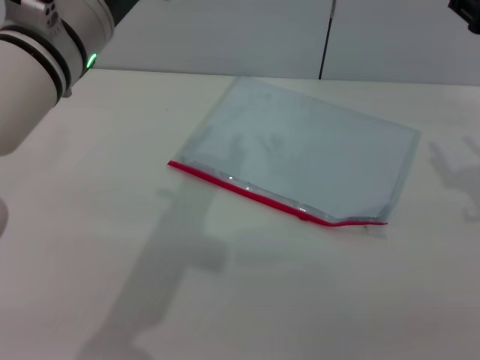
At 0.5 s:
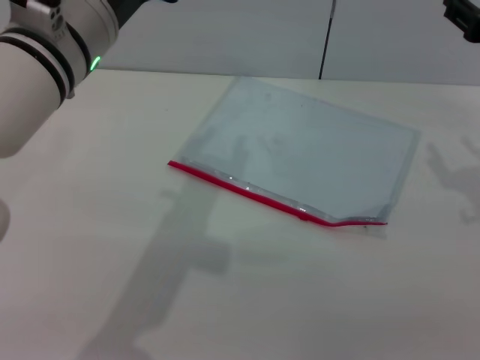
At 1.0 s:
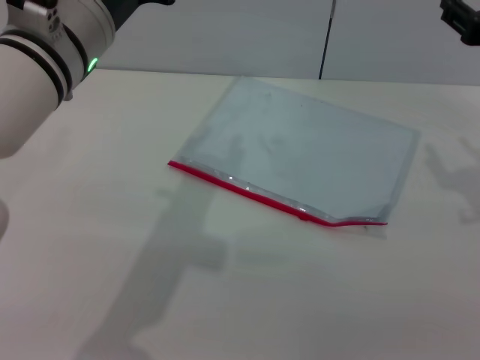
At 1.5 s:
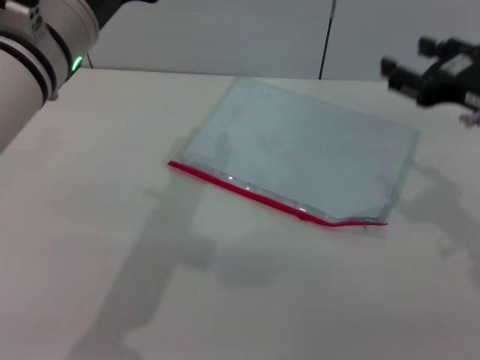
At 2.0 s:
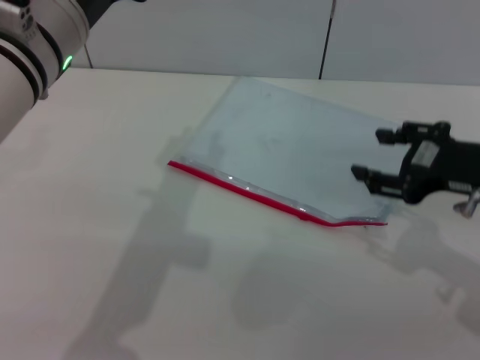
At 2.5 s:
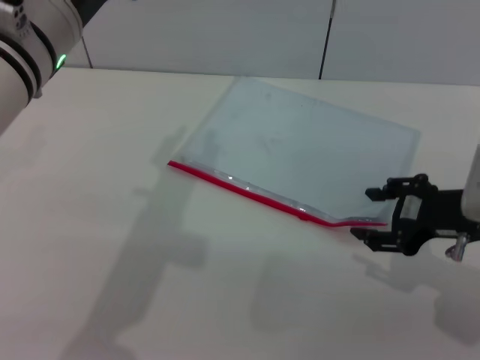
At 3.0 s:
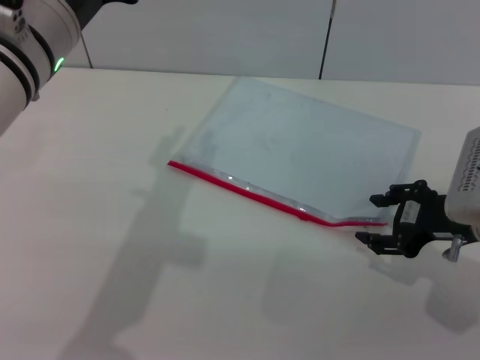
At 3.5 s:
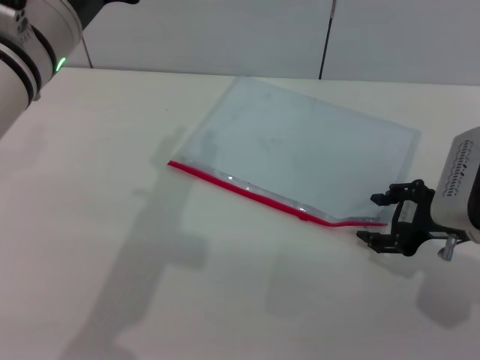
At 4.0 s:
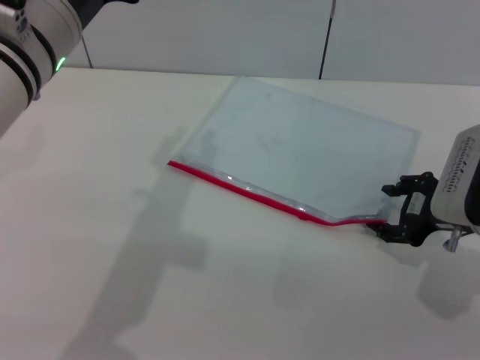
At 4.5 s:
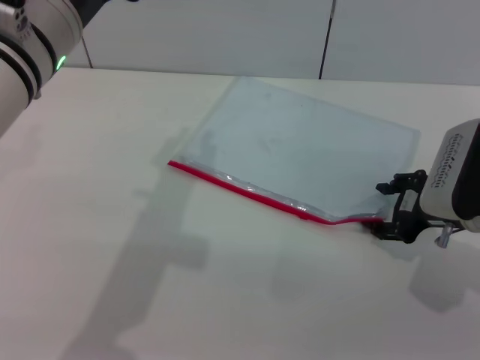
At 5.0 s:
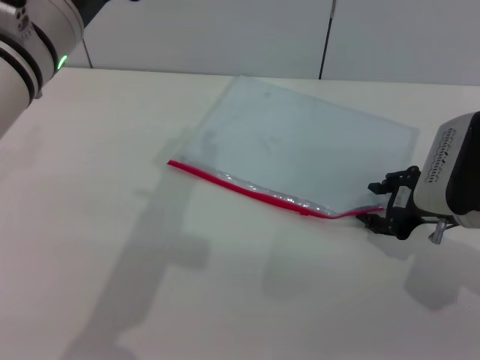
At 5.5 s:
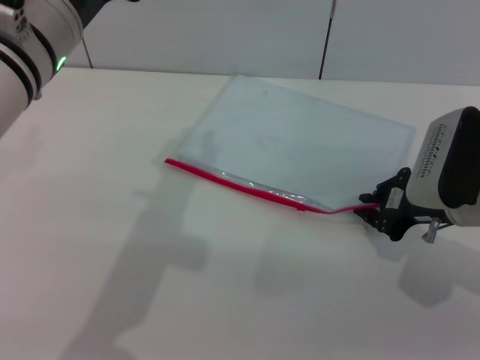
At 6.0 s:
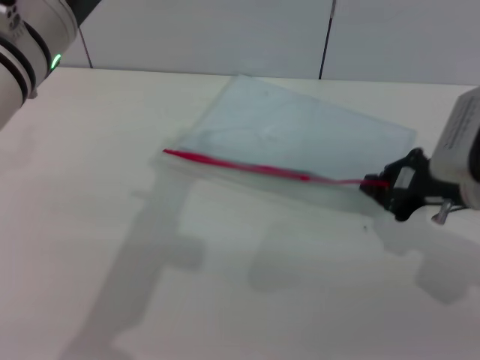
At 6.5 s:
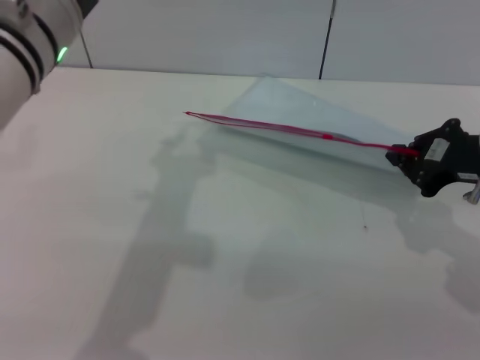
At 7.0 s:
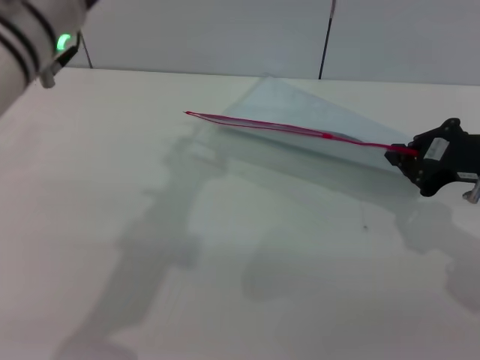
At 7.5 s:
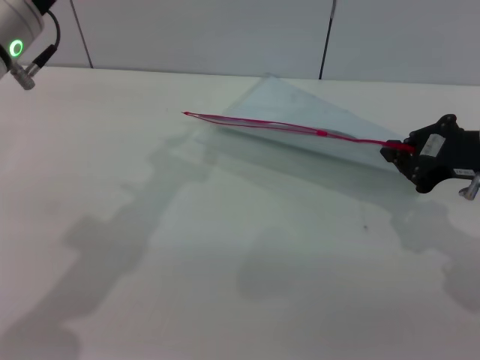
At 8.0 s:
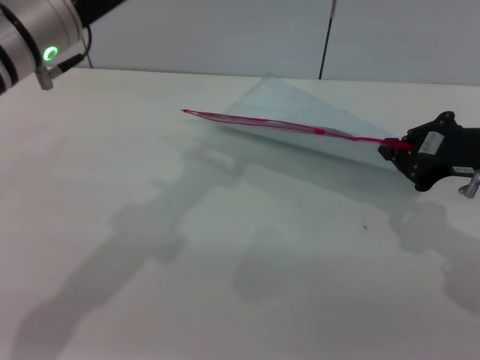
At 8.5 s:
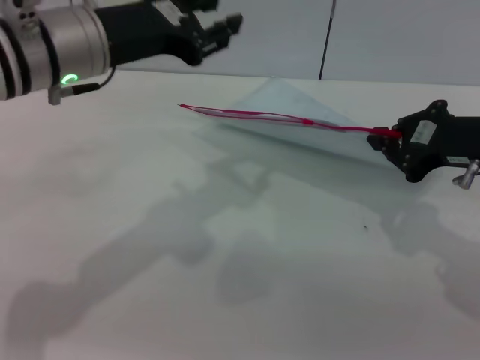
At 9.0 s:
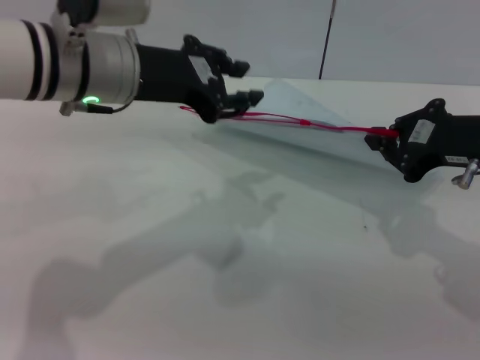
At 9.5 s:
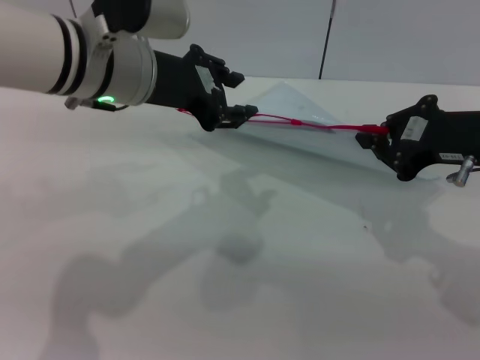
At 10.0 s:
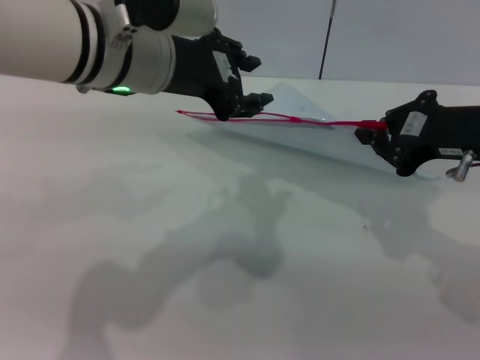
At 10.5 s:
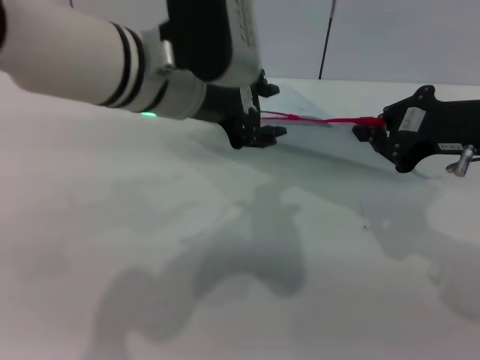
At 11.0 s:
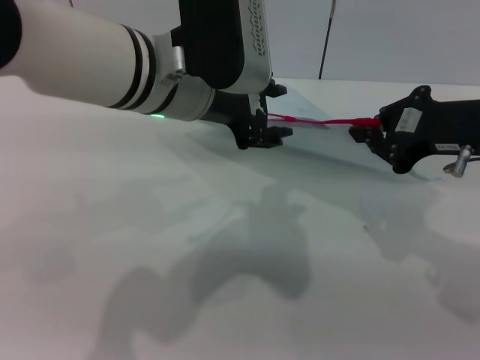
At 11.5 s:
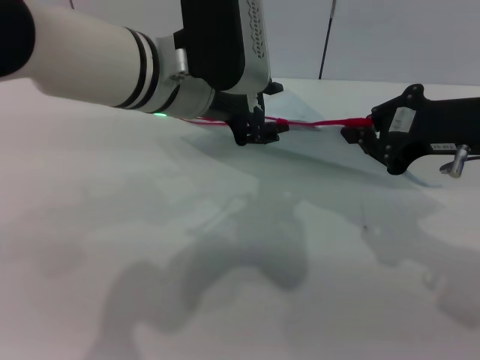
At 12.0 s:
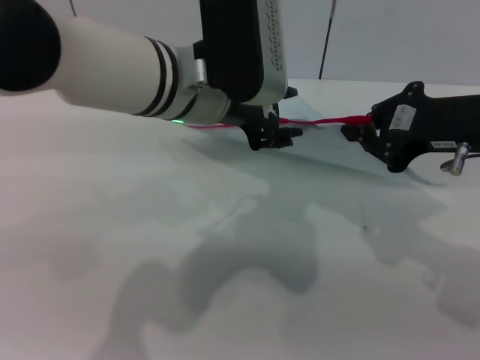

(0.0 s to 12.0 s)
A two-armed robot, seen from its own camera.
Step, 0.0 s - 9.0 s: Pick up the transparent plastic bag with the right gripper.
0.0 s - 2.0 s: The right gripper ends up some 5 cm from where it was.
2.0 s - 4.0 s: The right gripper moves downward, approximately 5 cm.
4.0 s - 6.0 s: The right gripper closes its fingers.
8.0 s - 10.0 s: The left gripper goes roughly 5 cm to the right.
10.0 s - 12.0 s: The left gripper moves roughly 5 cm.

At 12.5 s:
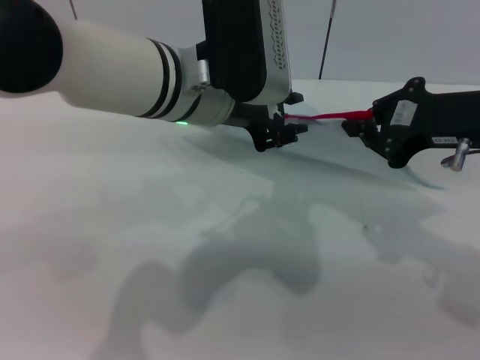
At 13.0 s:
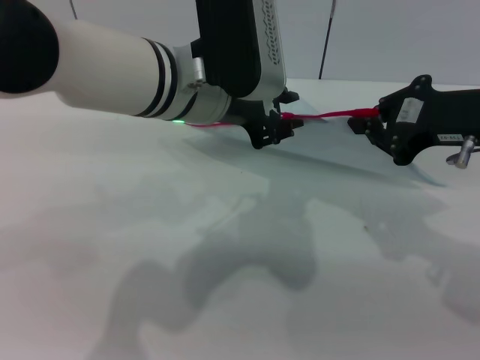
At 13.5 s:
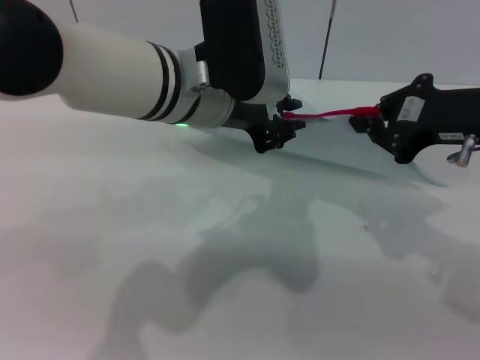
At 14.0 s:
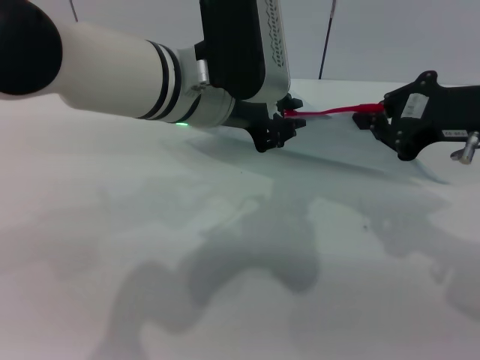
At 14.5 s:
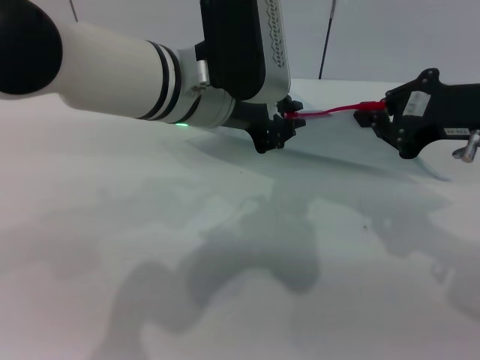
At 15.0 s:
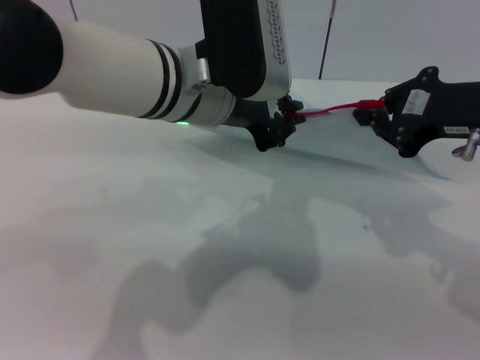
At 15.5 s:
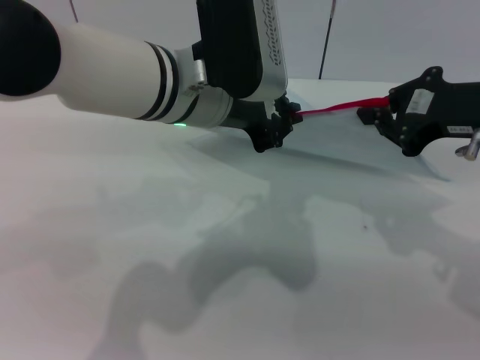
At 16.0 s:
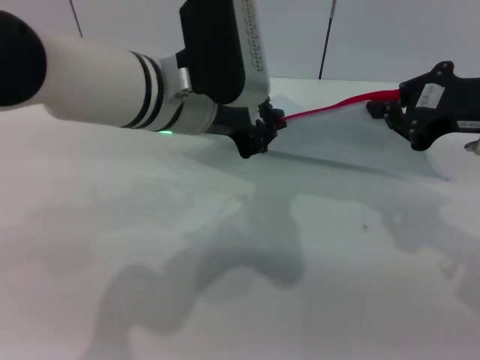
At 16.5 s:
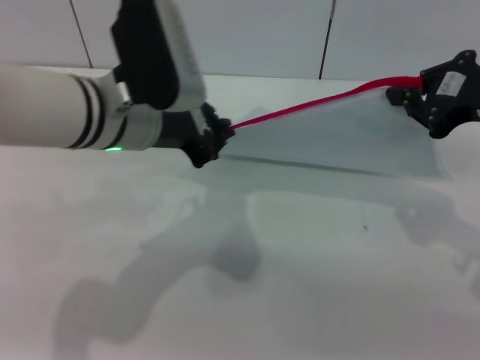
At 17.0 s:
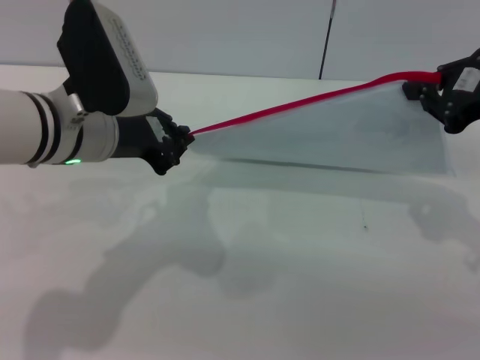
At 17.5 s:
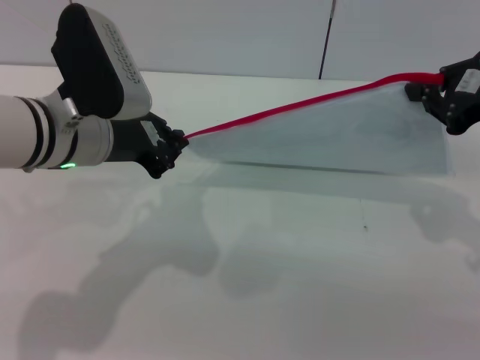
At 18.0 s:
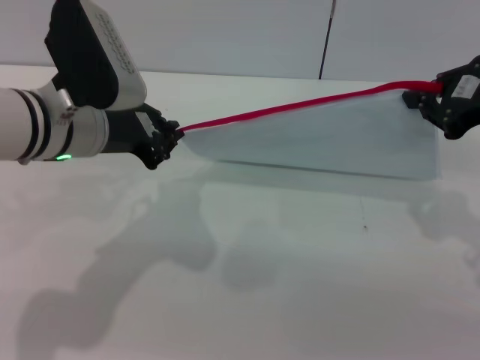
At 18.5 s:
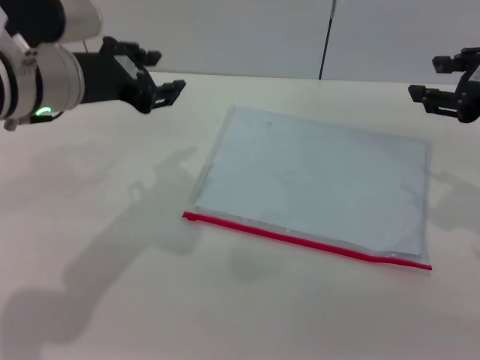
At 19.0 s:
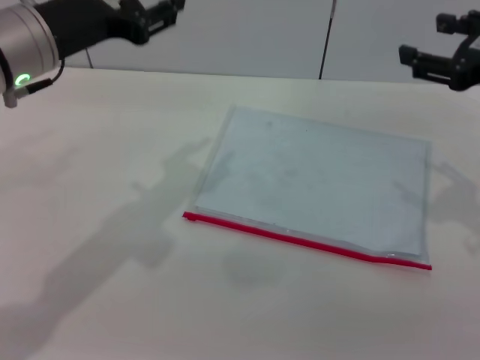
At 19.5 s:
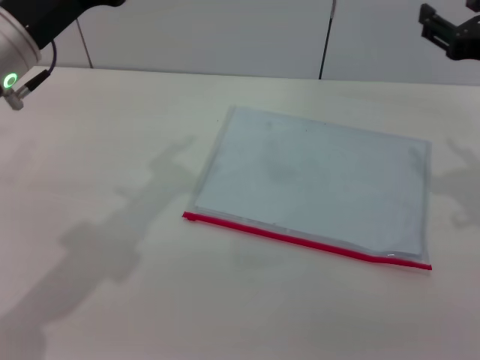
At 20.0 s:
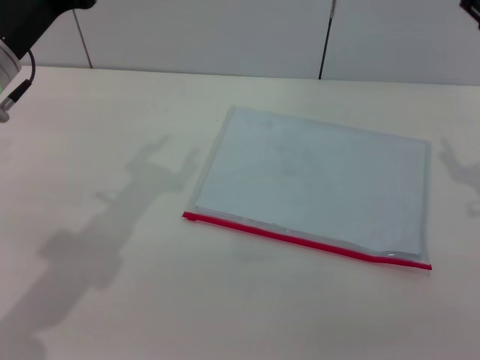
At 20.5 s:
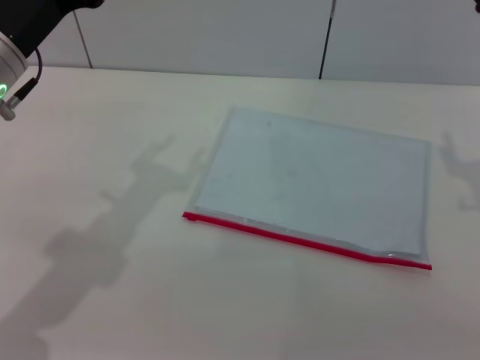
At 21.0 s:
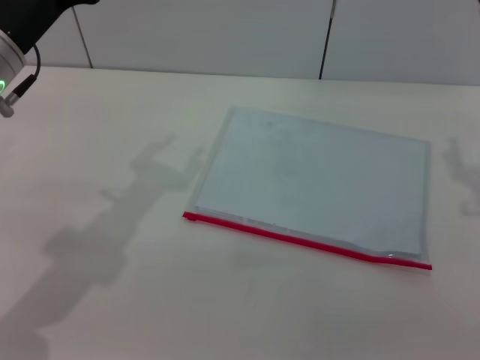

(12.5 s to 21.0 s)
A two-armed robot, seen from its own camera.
Step, 12.5 s - 18.0 s: Pulling up the zipper on the transparent plastic bag with the left gripper to close it.
Step, 18.5 s - 19.5 s: Place the transparent plastic bag.
12.5 s - 14.5 s: The left gripper closes its fingers.
14.5 s - 16.5 s: The left gripper heads to the left, covering roughly 5 cm.
16.5 s - 19.0 s: The right gripper opens its fingers. Meanwhile the left gripper shifts about 10 cm to the left, and opens its fingers.
19.0 s - 21.0 s: The right gripper changes place by approximately 5 cm.

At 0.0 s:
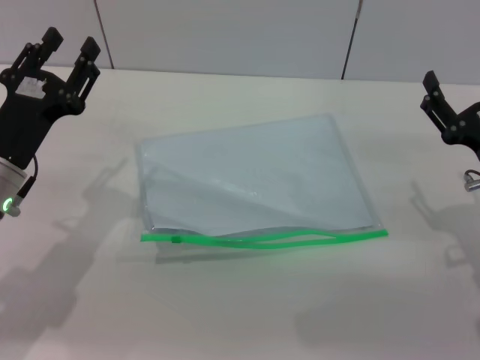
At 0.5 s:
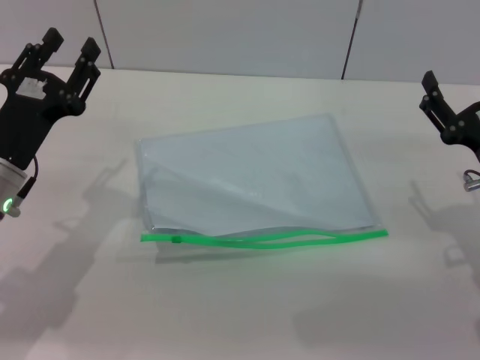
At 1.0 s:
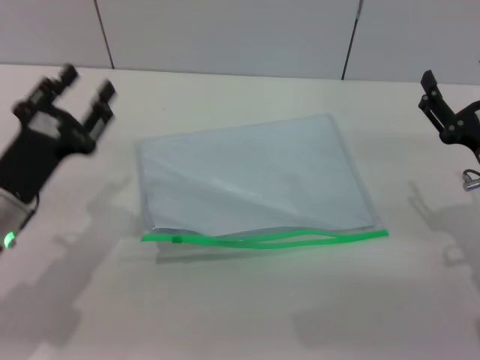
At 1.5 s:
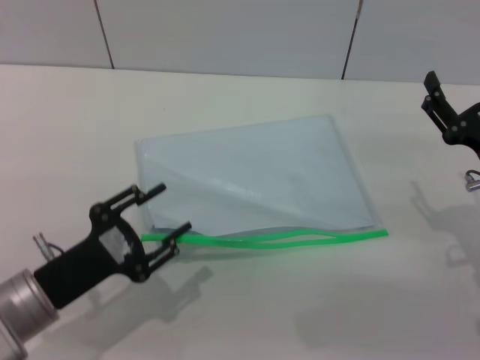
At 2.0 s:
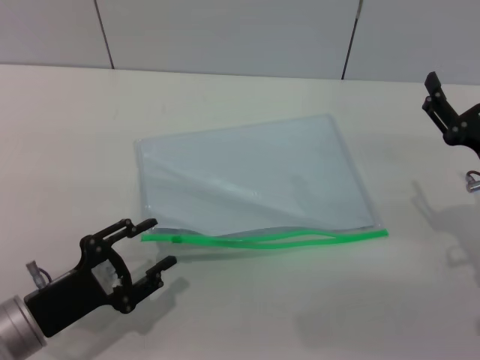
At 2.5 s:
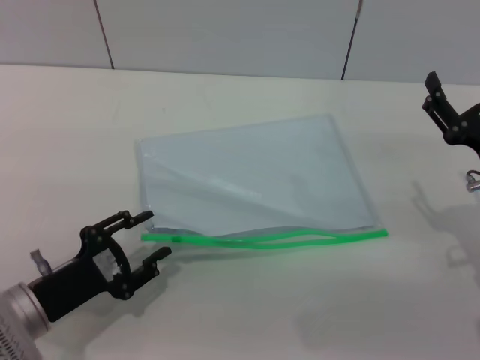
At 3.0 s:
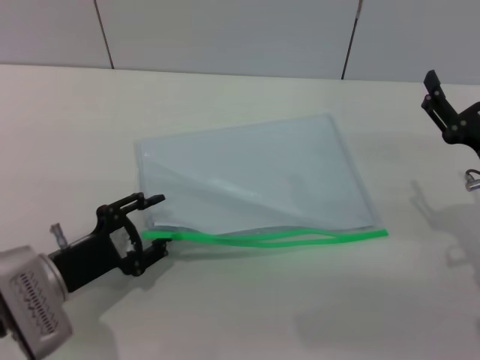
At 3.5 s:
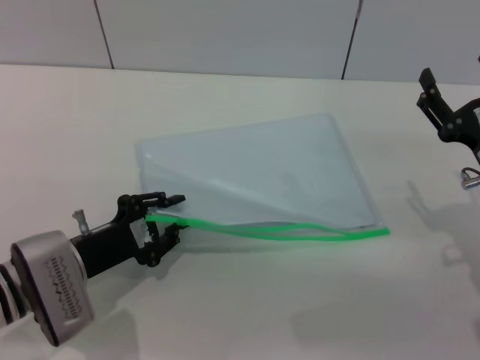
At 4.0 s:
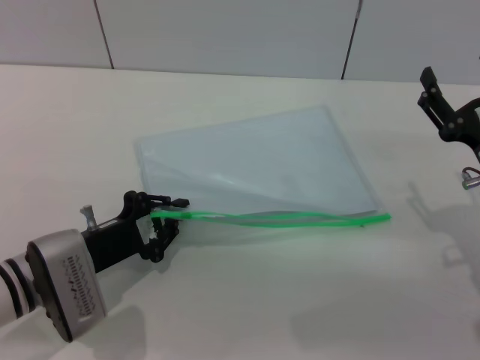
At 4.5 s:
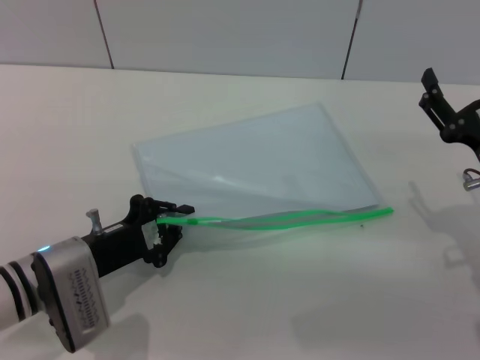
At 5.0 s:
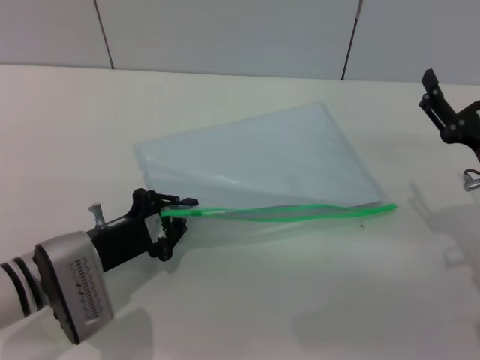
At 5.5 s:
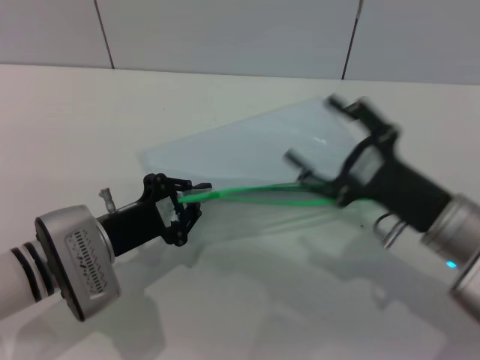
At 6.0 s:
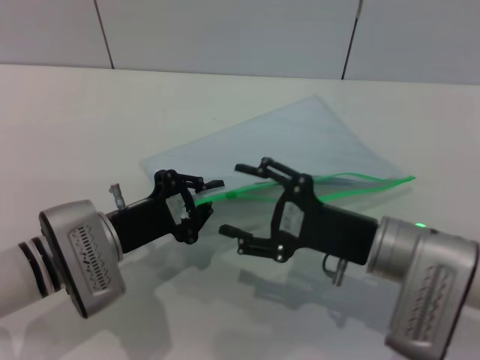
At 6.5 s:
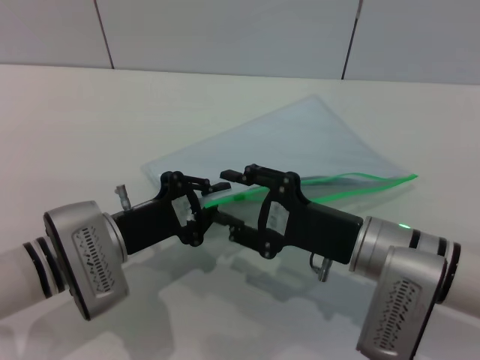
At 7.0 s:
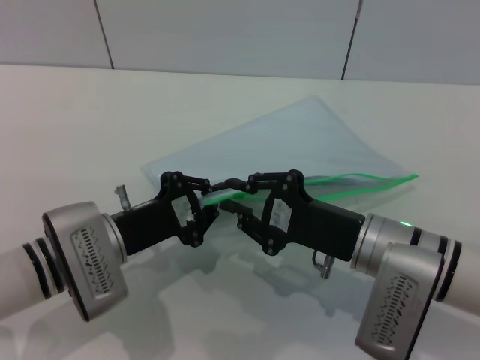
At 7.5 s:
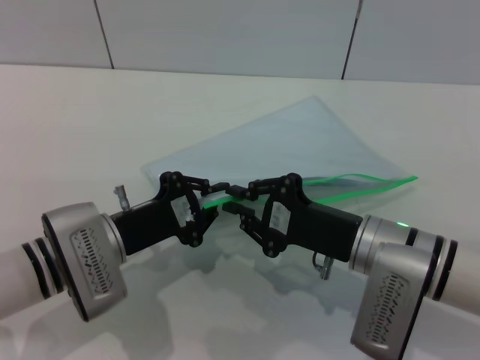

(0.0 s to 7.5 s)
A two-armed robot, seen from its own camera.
Step, 0.0 s - 5.0 s: Pick up the transparent plastic bag with the left gripper.
0.0 s - 2.0 s: The left gripper goes roughly 10 cm backward and downward.
2.0 s - 4.0 s: The left gripper heads forward, covering approximately 10 cm, and closes its fingers.
4.0 s - 5.5 s: The right gripper moves to the left, approximately 5 cm.
5.5 s - 7.5 s: The right gripper is displaced to the left by roughly 5 cm, and closes up.
